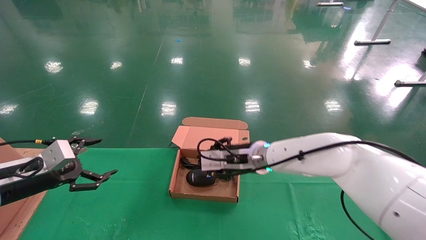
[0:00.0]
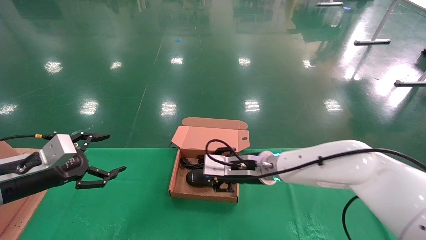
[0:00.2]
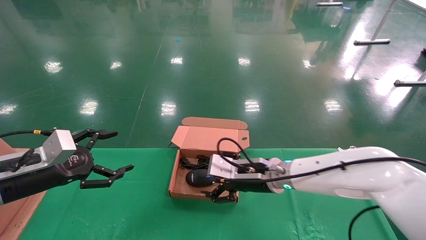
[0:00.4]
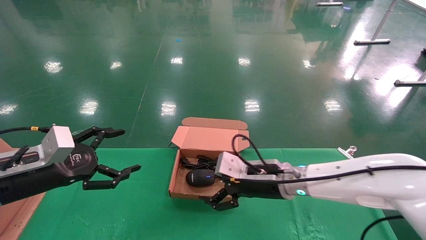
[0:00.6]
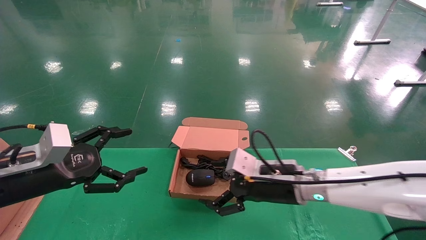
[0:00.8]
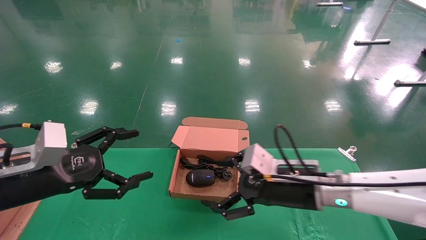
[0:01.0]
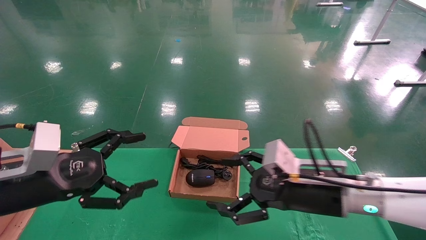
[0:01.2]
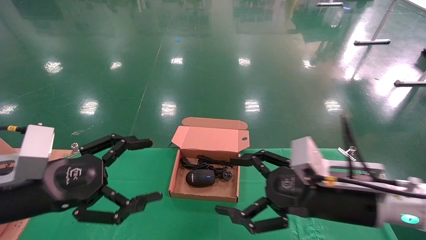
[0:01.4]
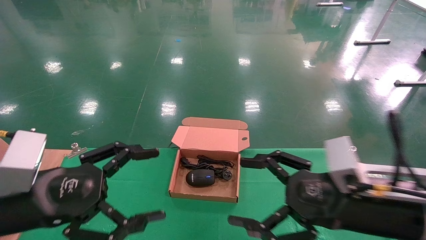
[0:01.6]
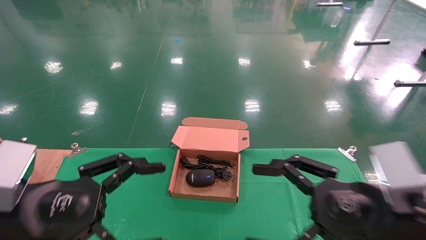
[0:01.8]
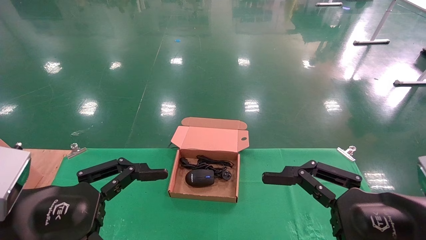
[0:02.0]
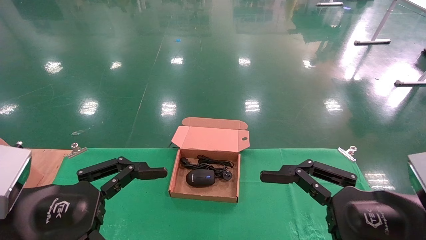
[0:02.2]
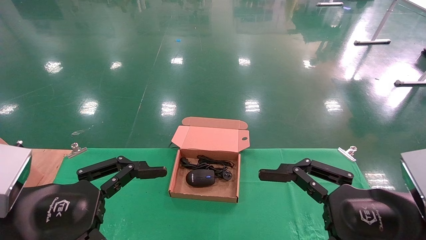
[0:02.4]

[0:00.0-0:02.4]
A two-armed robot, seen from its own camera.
0:00.0 to 0:01.2: The left gripper is displaced to the right, backward and upward by about 15 cm, while the right gripper goes approximately 20 cm backward and to the right, and opens up.
0:01.2 to 0:02.4: The right gripper is displaced backward and to the right by about 15 cm, while the left gripper is displaced backward by some 5 cm.
